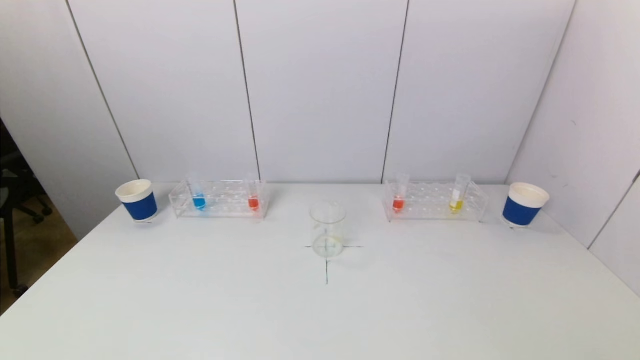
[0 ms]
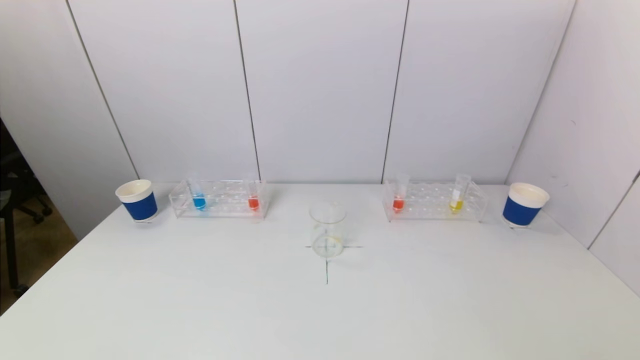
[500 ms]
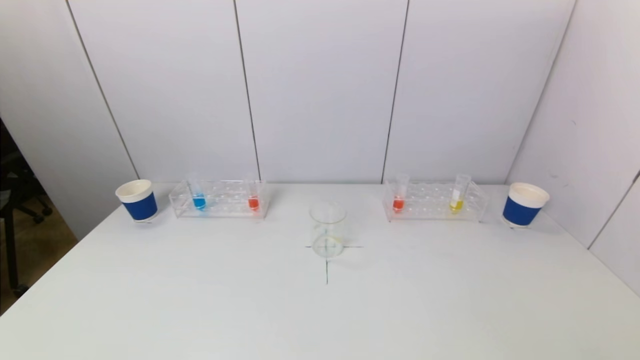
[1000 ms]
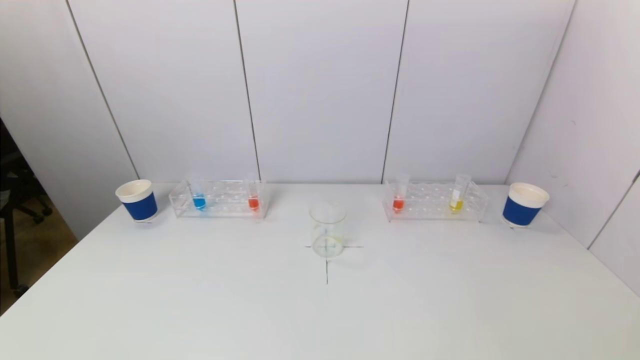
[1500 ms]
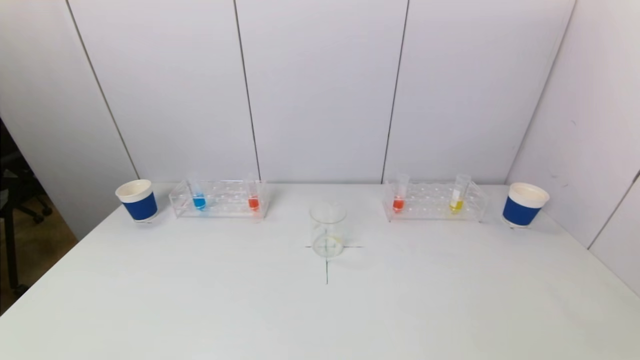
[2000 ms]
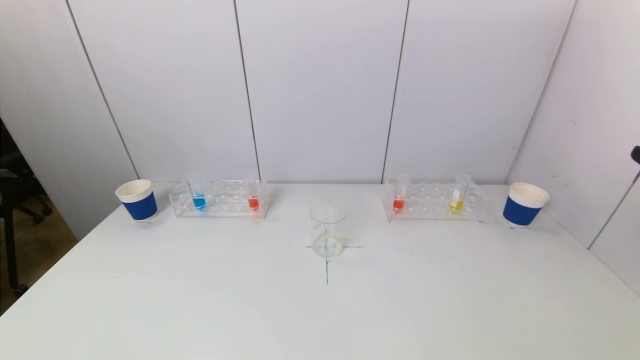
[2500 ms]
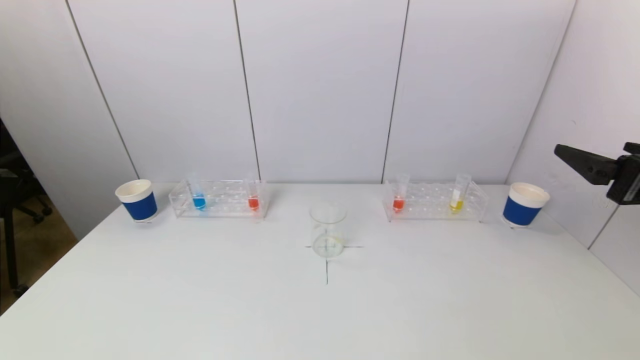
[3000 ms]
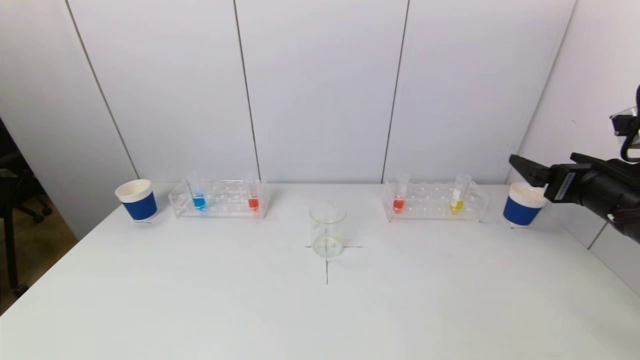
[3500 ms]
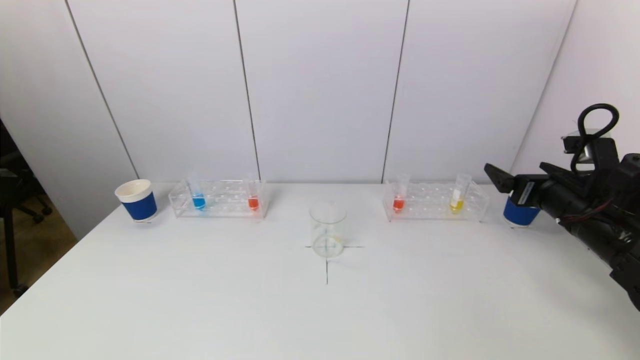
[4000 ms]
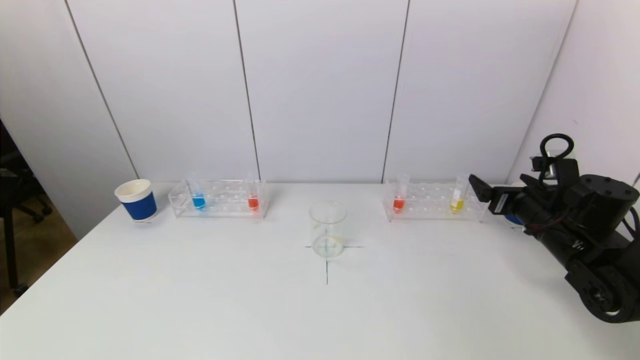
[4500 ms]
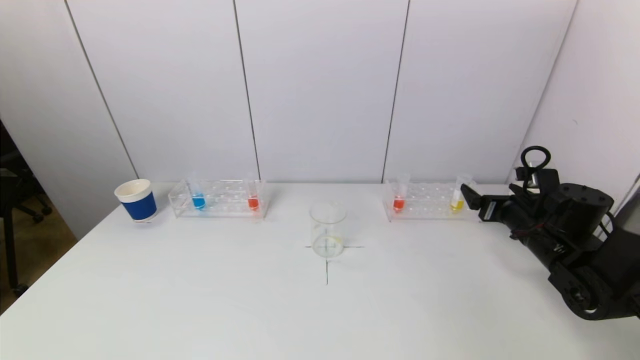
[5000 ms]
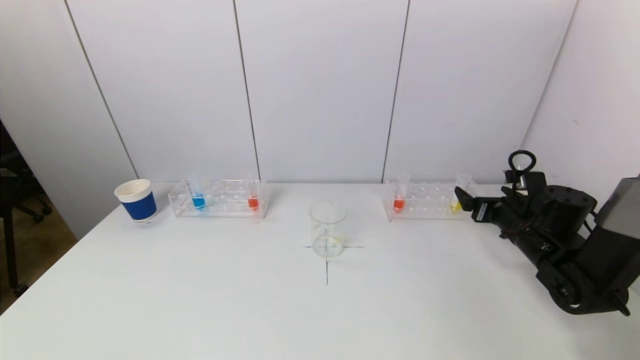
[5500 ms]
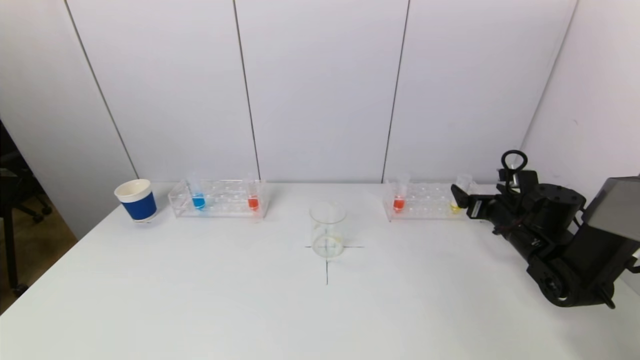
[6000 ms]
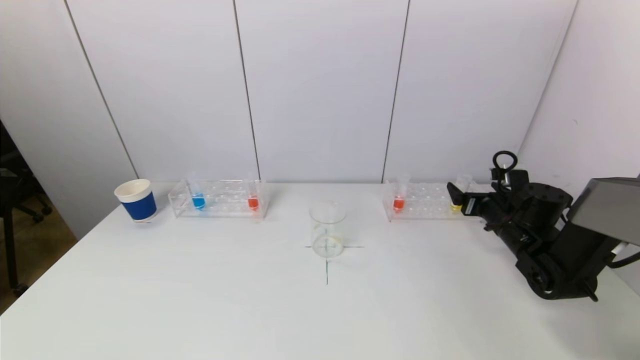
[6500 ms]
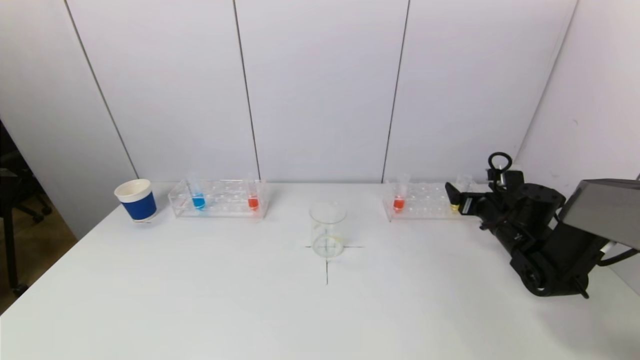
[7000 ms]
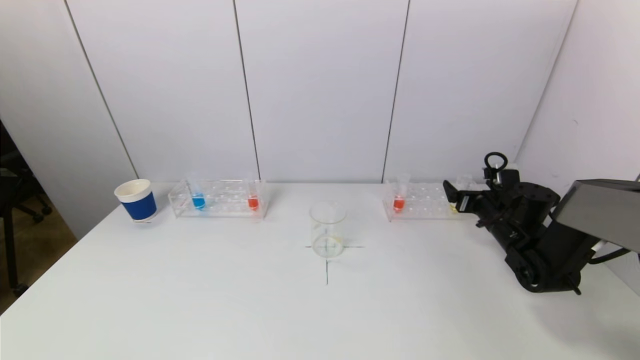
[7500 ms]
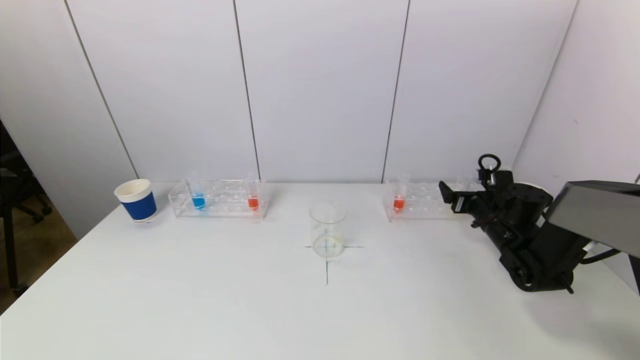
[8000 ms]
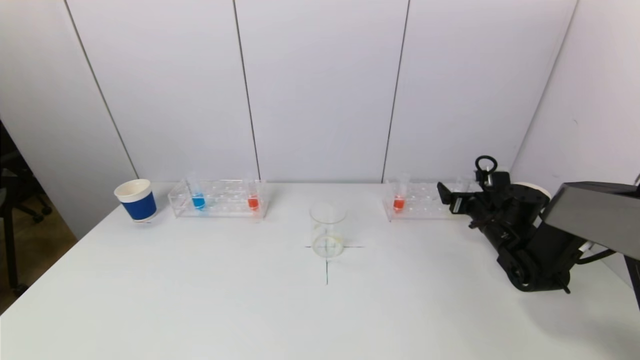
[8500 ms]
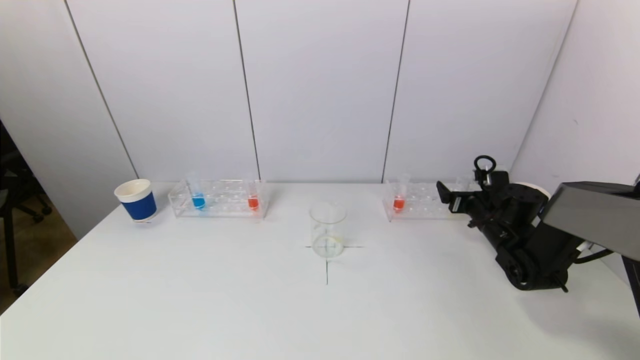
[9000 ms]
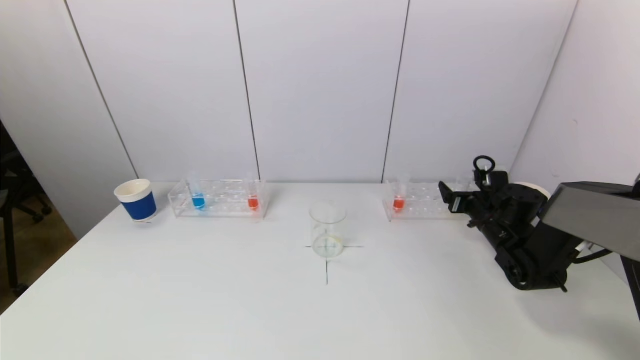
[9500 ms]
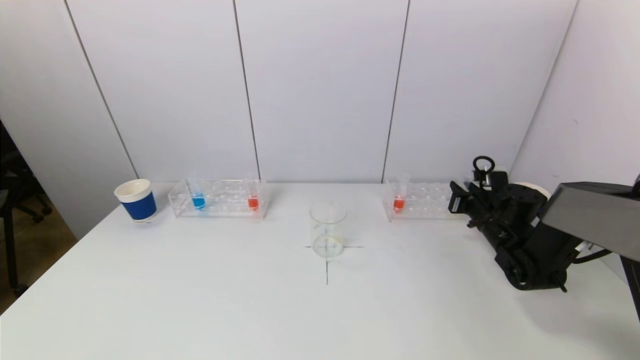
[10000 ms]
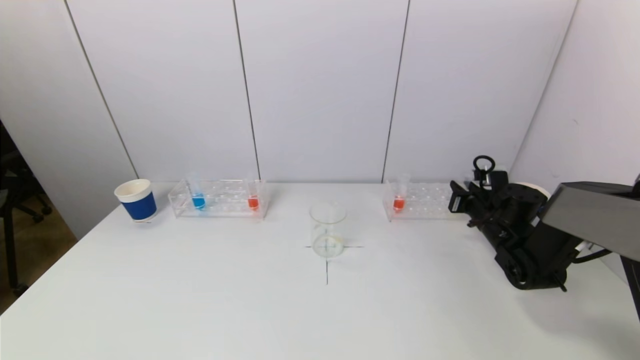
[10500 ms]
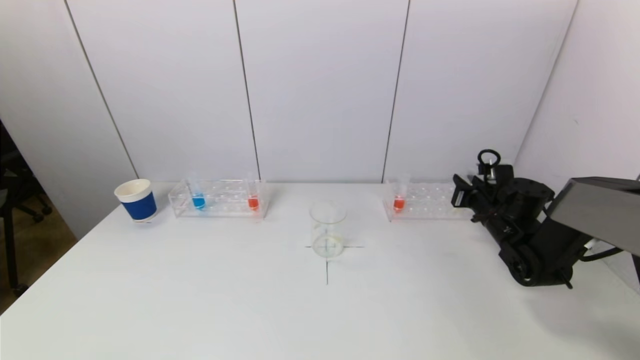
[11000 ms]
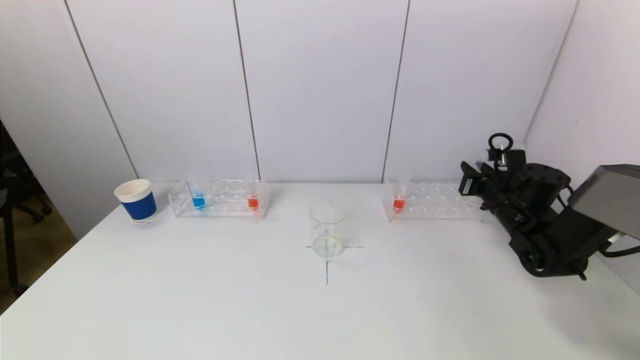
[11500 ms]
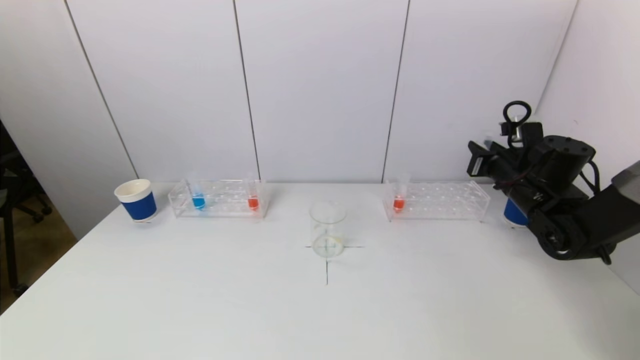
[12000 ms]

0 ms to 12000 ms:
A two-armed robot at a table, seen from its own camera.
Task of the whole recording: pick up a test tube with pigment on left test tube rack and a test tube with pigment on right test tube rack by grippers and pour them into the beaker.
Step, 0 ms to 10000 ms: Grasp the yellow reagent with the right gripper.
2000 ms to 4000 ms: The right gripper travels forward by roughly 30 cm.
4000 ms to 6000 ms: The right gripper shifts approximately 10 cm downward and forward.
6000 ms to 8000 ms: The right gripper moves about 5 cm.
8000 ms to 10000 ms: The right gripper closes up.
10000 ms to 12000 ms: The right gripper moves upward, about 10 cm.

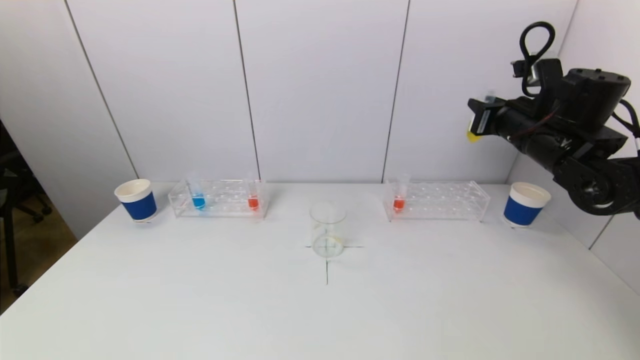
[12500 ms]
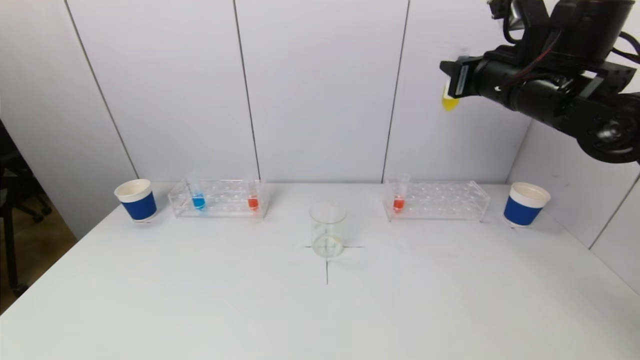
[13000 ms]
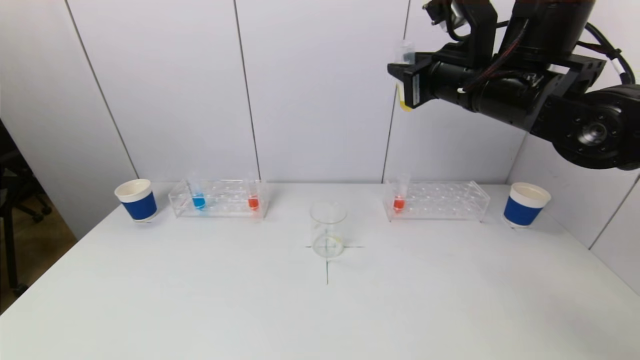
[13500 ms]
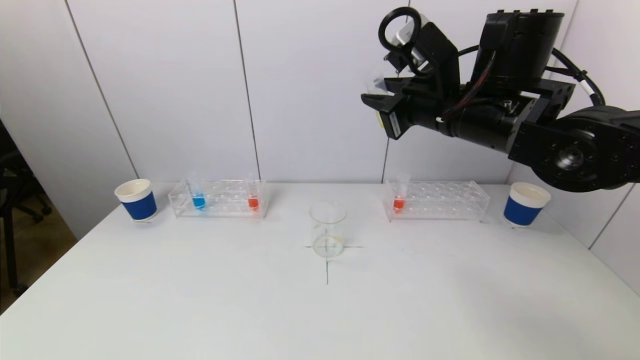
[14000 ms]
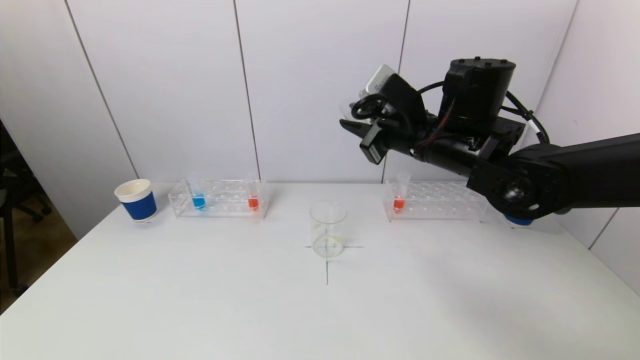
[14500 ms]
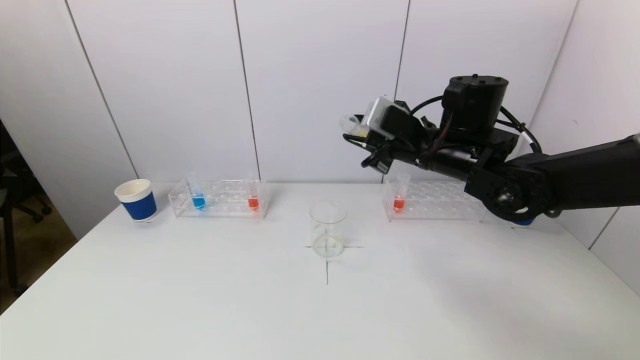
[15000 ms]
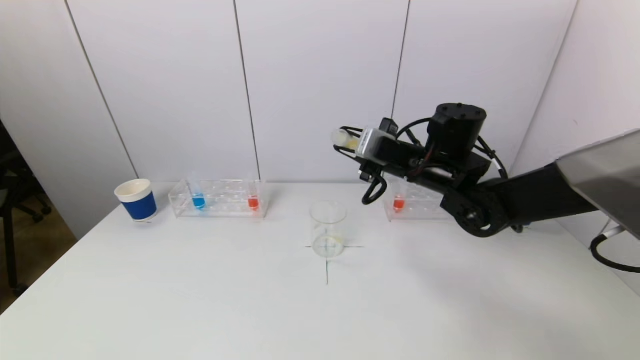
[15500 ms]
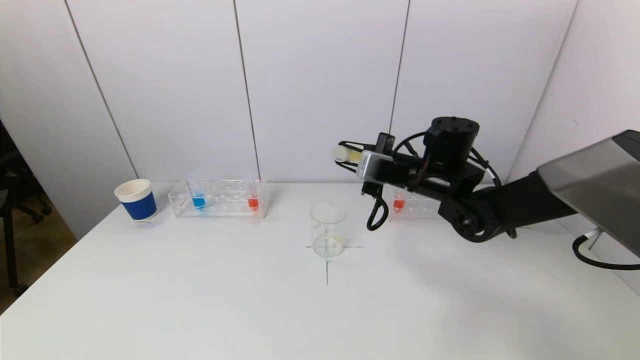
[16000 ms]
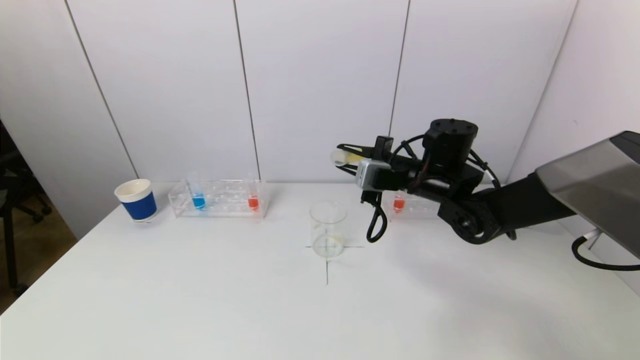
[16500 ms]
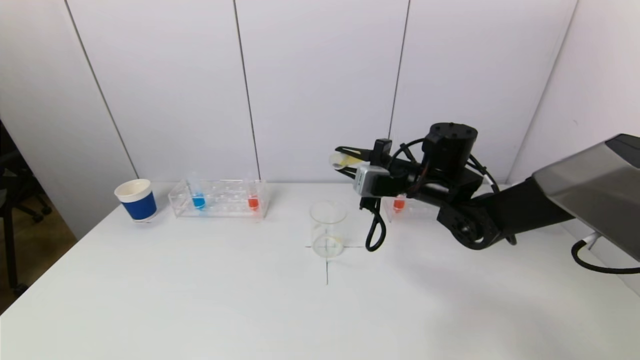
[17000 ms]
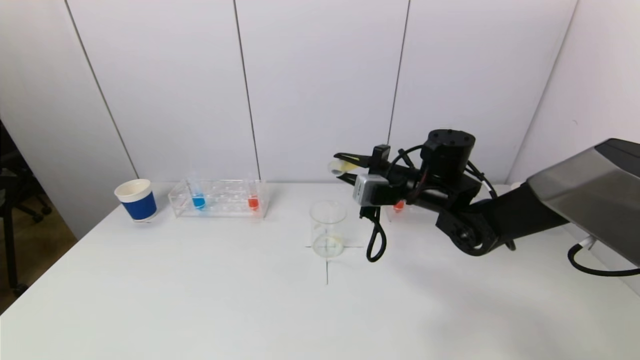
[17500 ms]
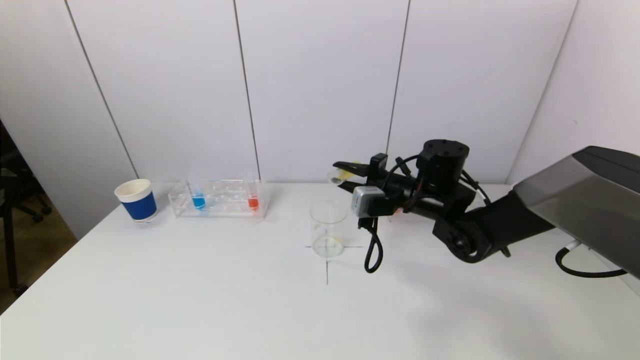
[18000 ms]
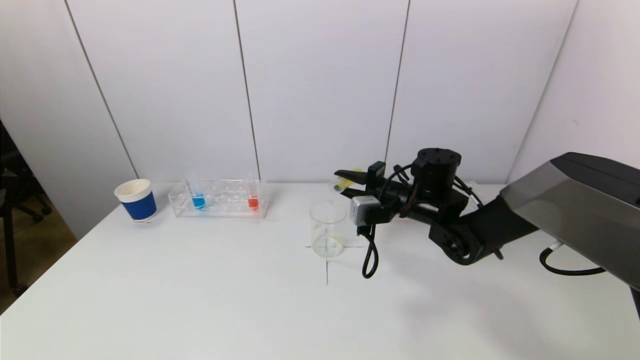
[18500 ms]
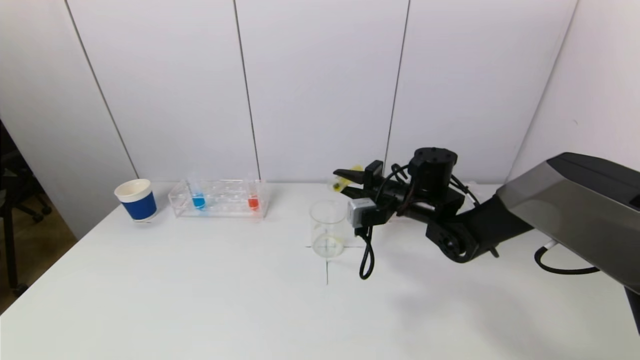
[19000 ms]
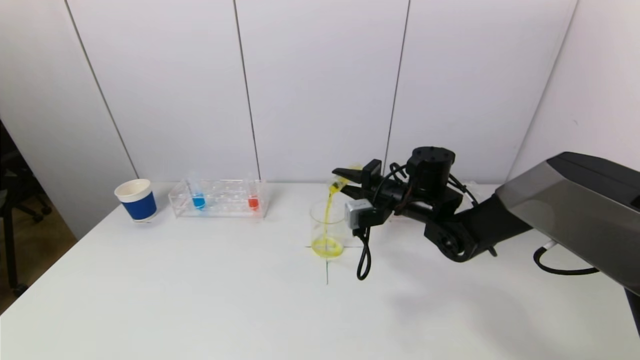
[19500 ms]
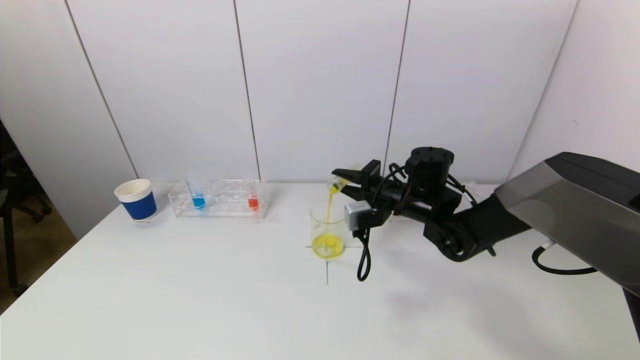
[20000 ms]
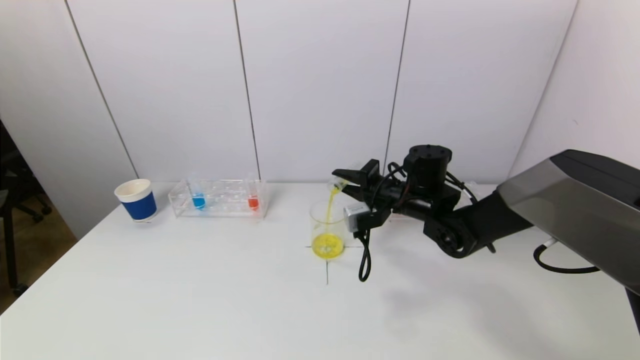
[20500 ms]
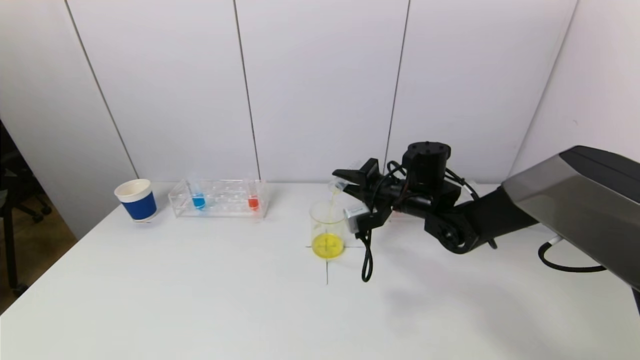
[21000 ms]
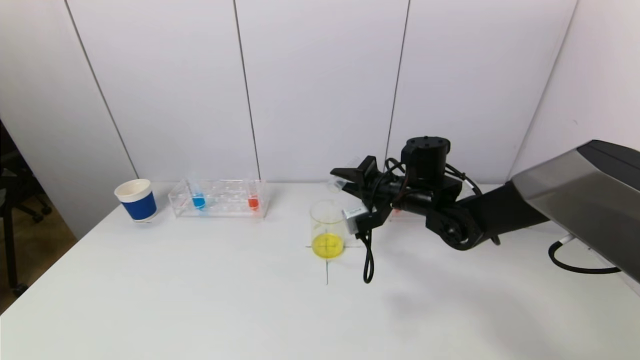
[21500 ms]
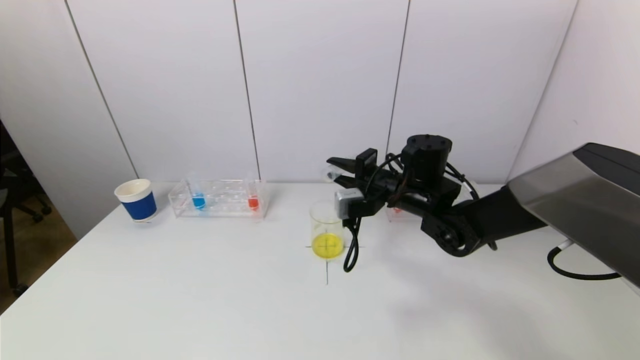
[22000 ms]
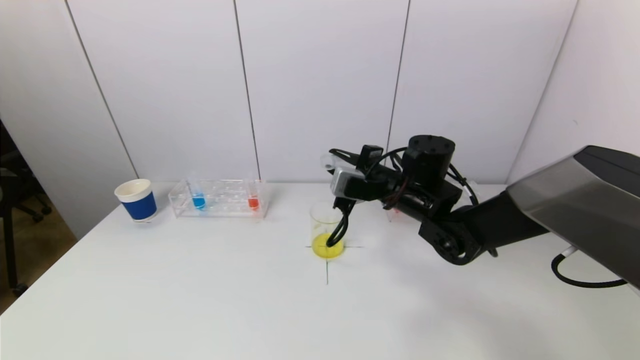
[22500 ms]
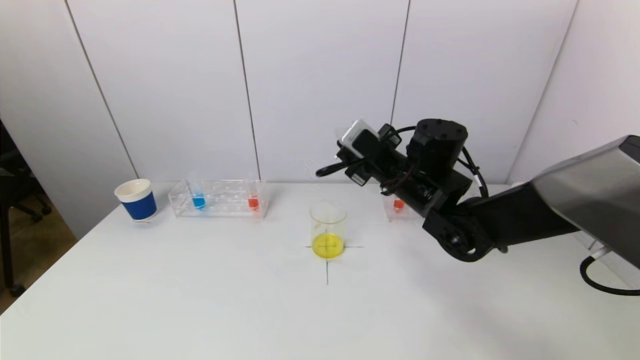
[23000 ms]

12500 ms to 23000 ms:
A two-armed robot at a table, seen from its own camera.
Task of the whole recording: pick up a test tube with pigment on left test tube rack and a test tube with pigment on right test tube rack by grippers and pour them into the beaker.
Step, 12500 ms to 21500 ms: Pour the yellow reagent into the graduated cylinder with the right gripper.
12500 ms to 14500 ms: The right gripper heads to the left, covering some 15 cm.
14500 ms to 16500 ms: The right gripper goes about 10 cm downward.
16500 ms to 19000 ms: The right gripper moves downward, roughly 5 cm.
19000 ms to 21000 ms: The grippers make only small movements.
21000 ms to 23000 ms: The right gripper goes approximately 5 cm upward.
